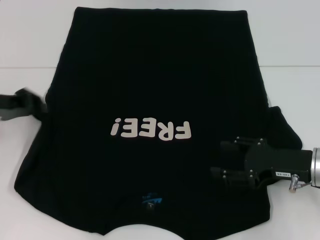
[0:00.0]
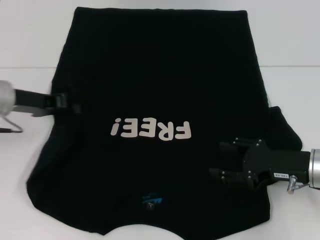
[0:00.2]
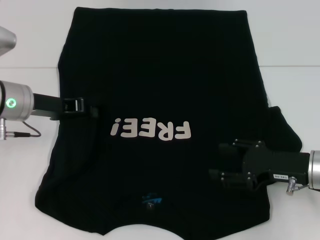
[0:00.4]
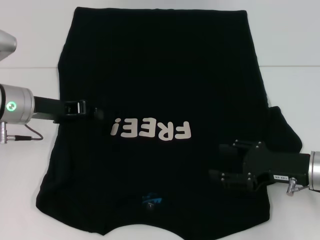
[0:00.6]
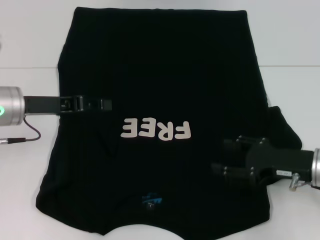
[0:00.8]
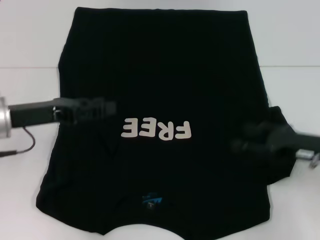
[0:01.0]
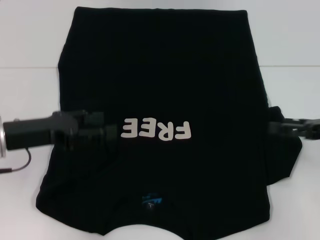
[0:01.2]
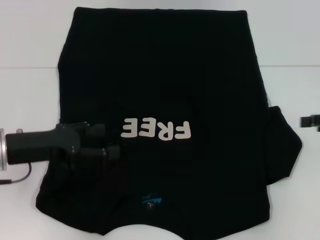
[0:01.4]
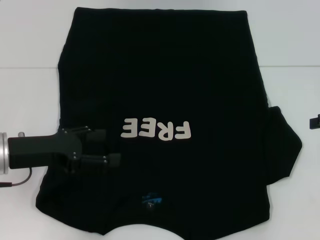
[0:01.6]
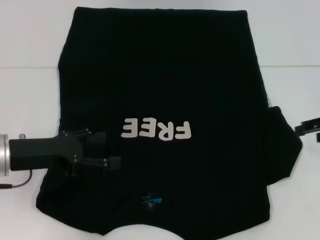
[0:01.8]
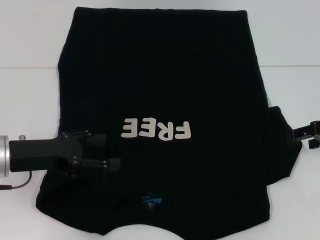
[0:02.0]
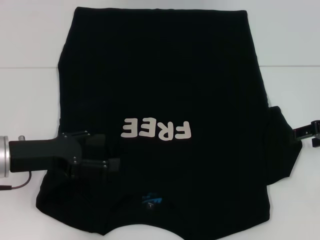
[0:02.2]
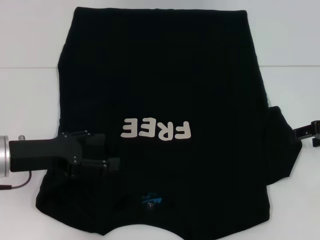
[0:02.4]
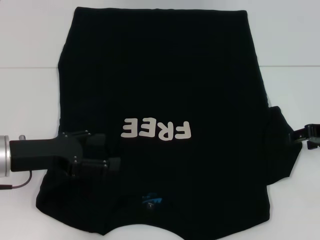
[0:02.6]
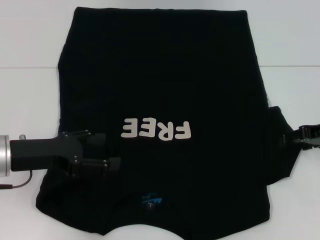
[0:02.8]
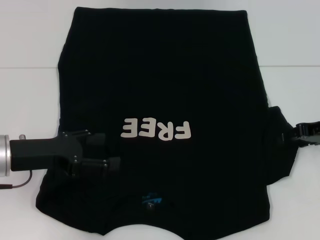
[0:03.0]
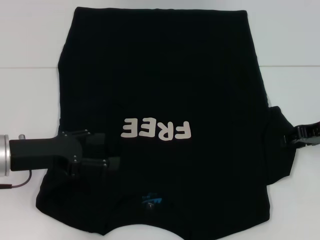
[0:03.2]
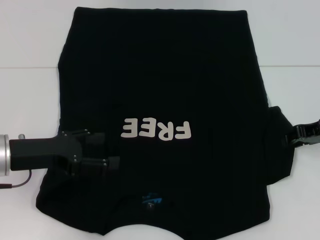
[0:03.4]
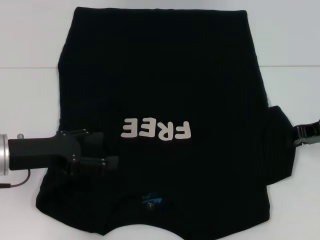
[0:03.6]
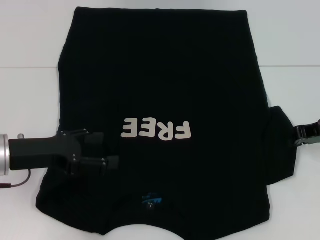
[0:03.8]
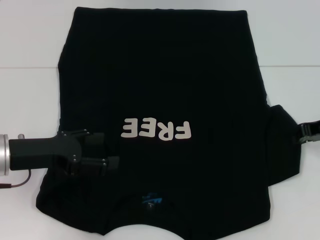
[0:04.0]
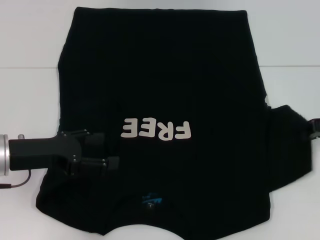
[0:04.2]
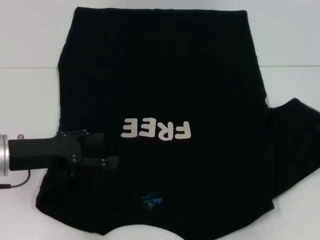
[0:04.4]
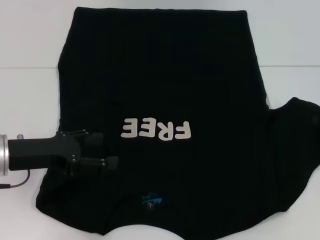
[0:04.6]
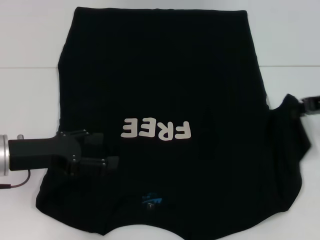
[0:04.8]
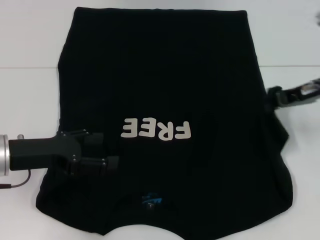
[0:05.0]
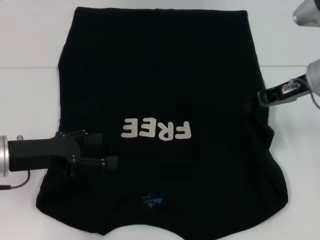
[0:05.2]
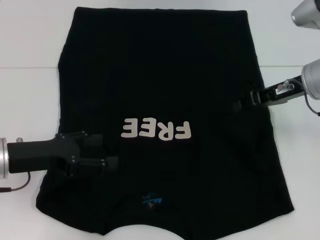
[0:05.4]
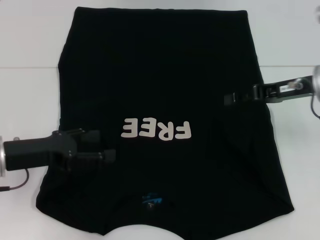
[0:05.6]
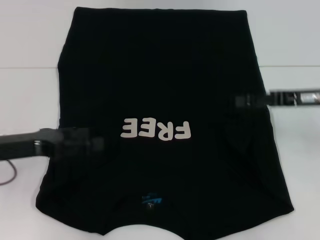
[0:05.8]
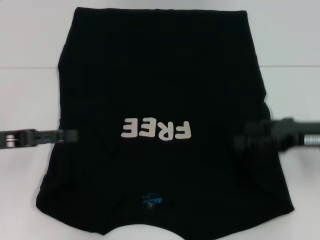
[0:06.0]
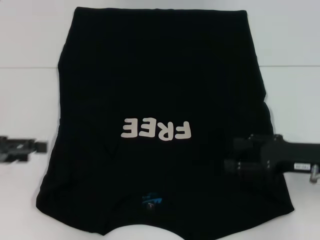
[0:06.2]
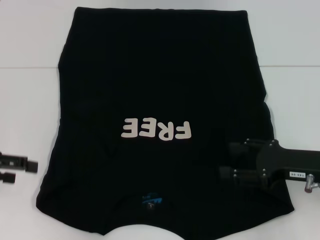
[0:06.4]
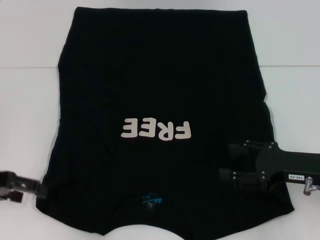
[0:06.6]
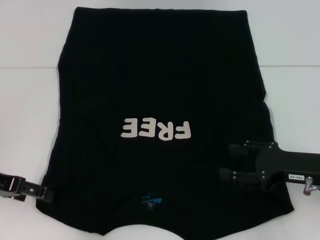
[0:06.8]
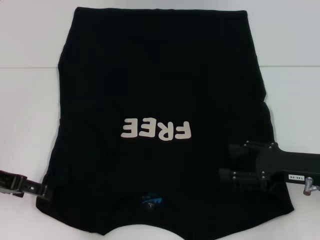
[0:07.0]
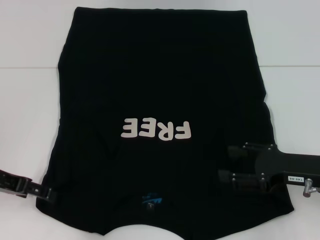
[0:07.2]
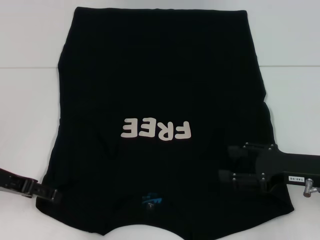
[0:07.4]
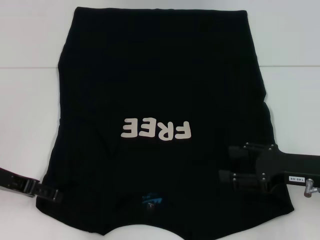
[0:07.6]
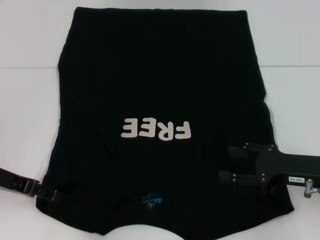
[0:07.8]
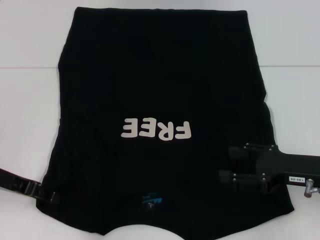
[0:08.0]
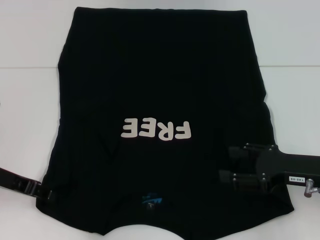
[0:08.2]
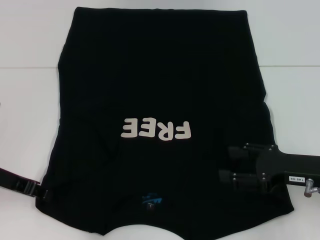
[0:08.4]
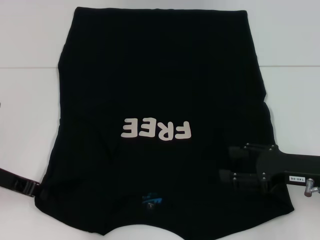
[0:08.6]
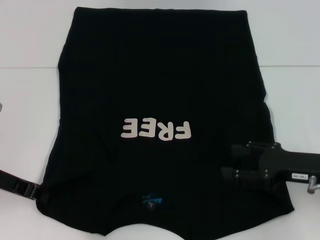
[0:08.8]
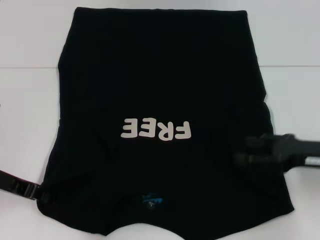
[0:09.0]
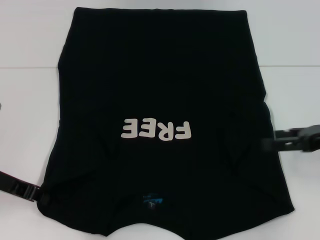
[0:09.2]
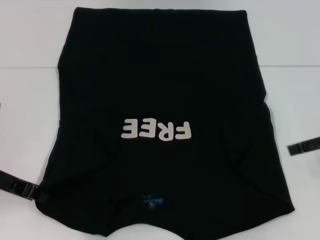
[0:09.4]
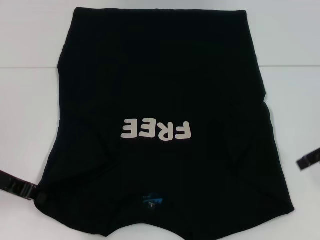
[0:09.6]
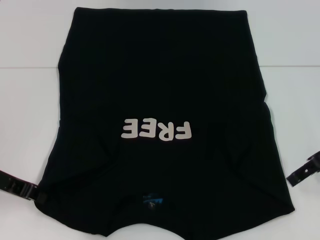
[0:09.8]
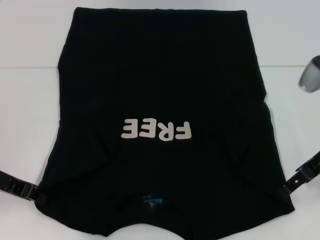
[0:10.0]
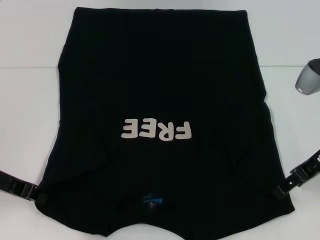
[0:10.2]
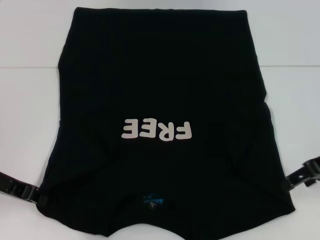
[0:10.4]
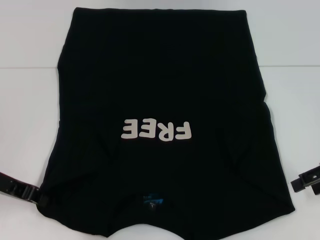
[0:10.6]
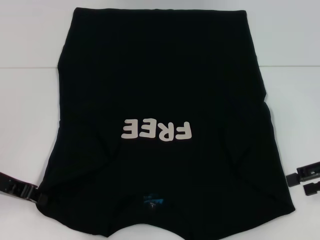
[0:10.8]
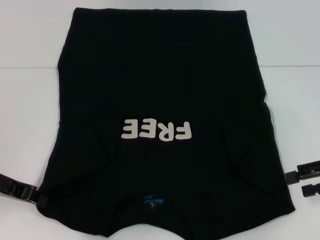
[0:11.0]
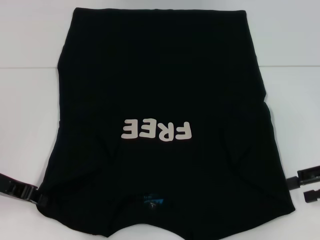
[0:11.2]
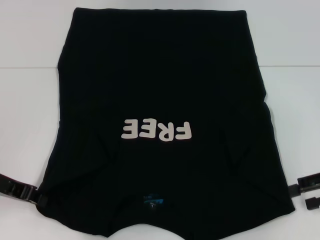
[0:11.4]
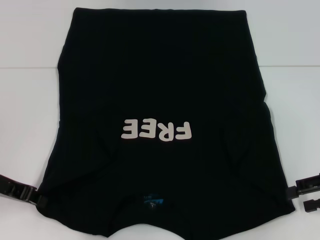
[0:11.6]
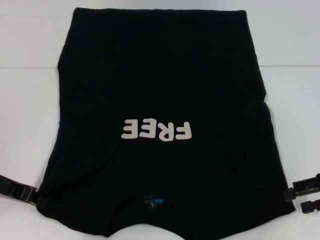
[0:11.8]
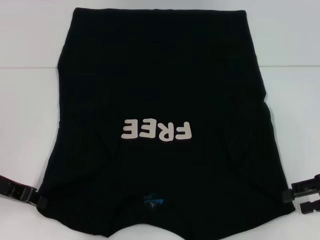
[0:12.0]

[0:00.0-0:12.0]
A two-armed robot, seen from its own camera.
Step, 0:01.8 to 0:06.0: Fold the bottom right sleeve with your right hand.
0:00.0 to 0:01.6: The right gripper travels to the right and upward by approximately 15 cm, while the left gripper travels backward and to the right by roughly 10 cm, and opens.
0:01.6 to 0:03.0: The right gripper is displaced to the left by roughly 5 cm.
0:03.0 to 0:04.4: The right gripper closes.
0:04.4 to 0:06.0: The two grippers go about 5 cm to the left. The right gripper opens its fingers.
0:06.0 to 0:07.6: The right gripper shifts by approximately 5 cm.
0:07.6 to 0:09.0: The left gripper closes its fingers.
0:10.4 to 0:12.0: The right gripper changes place by approximately 5 cm.

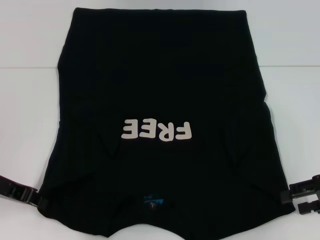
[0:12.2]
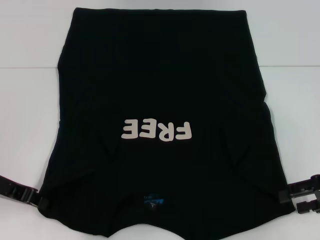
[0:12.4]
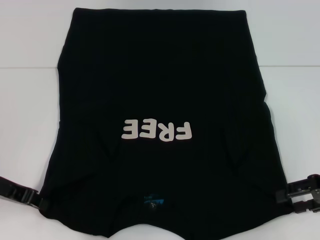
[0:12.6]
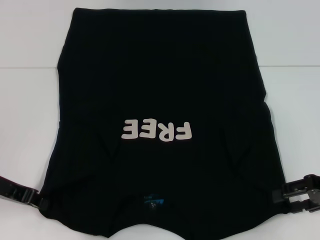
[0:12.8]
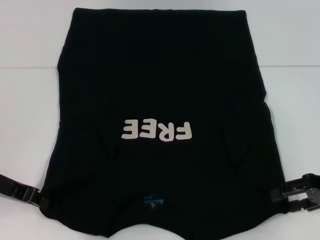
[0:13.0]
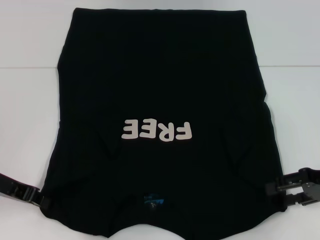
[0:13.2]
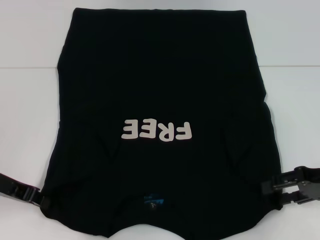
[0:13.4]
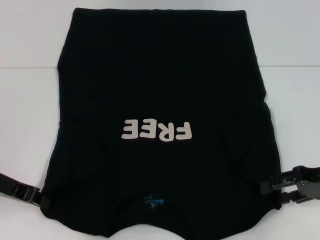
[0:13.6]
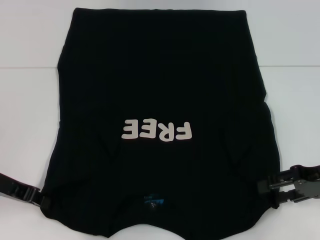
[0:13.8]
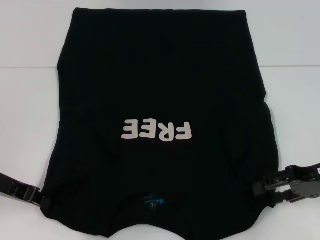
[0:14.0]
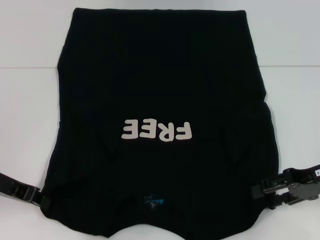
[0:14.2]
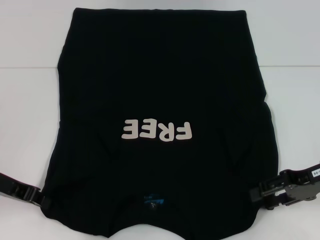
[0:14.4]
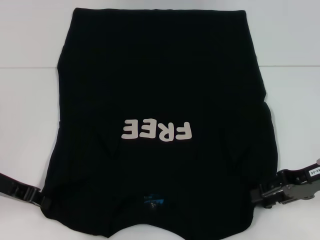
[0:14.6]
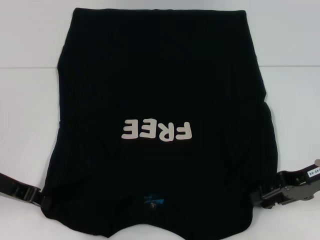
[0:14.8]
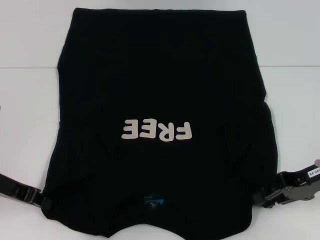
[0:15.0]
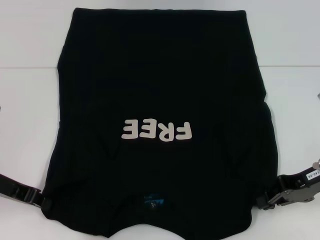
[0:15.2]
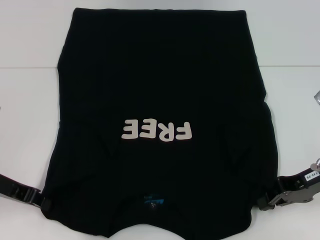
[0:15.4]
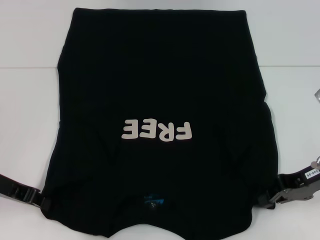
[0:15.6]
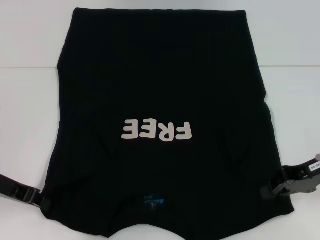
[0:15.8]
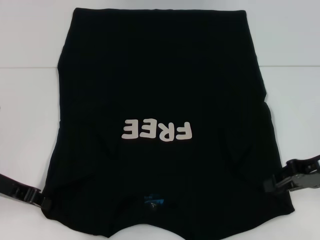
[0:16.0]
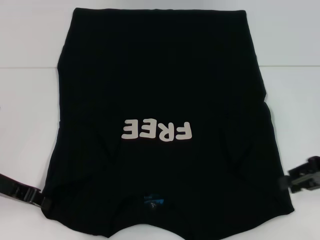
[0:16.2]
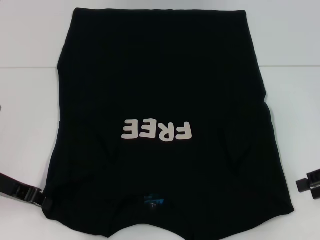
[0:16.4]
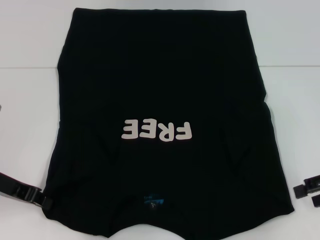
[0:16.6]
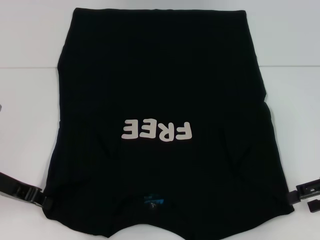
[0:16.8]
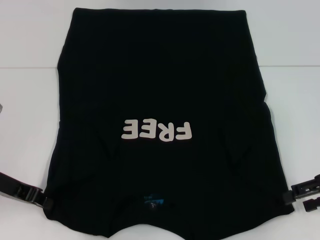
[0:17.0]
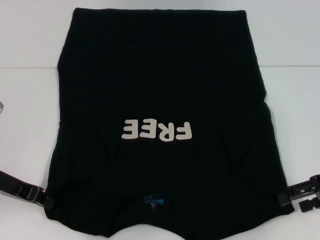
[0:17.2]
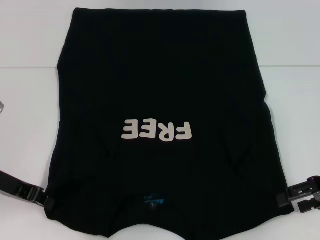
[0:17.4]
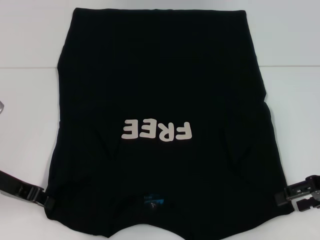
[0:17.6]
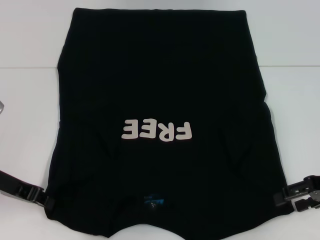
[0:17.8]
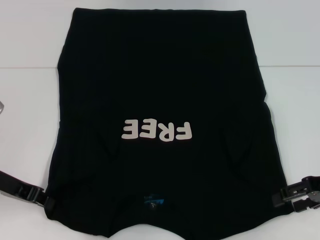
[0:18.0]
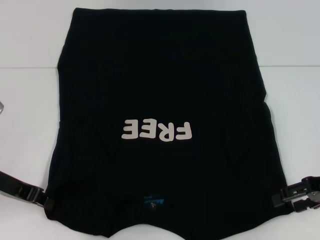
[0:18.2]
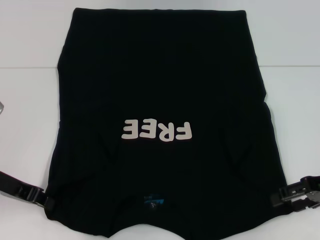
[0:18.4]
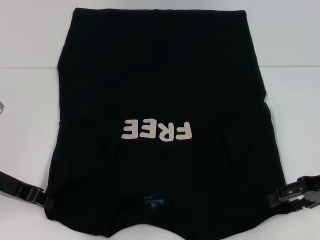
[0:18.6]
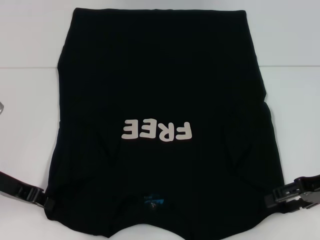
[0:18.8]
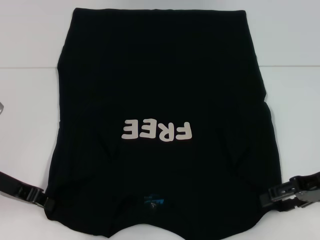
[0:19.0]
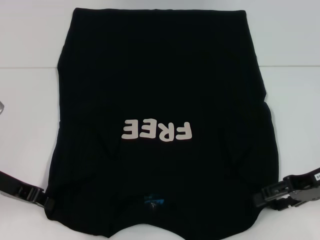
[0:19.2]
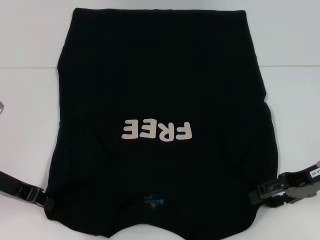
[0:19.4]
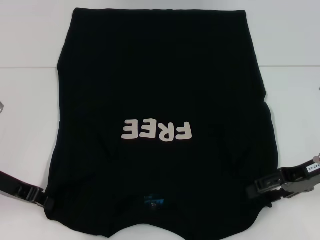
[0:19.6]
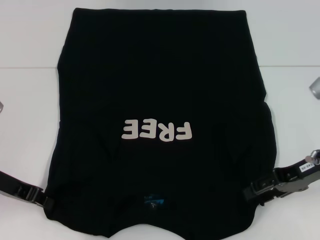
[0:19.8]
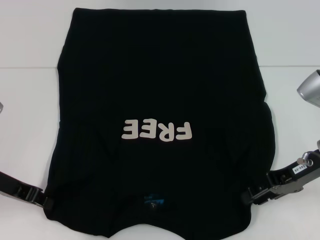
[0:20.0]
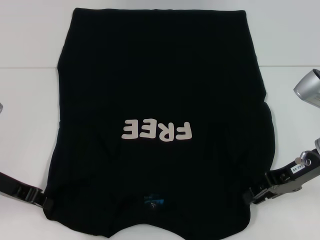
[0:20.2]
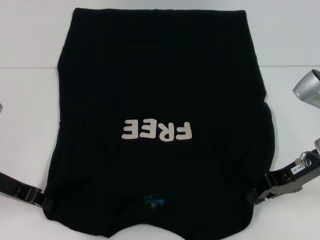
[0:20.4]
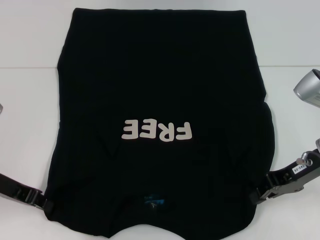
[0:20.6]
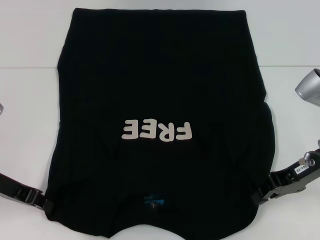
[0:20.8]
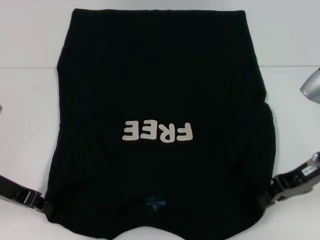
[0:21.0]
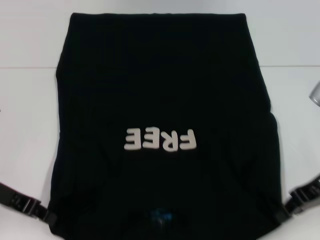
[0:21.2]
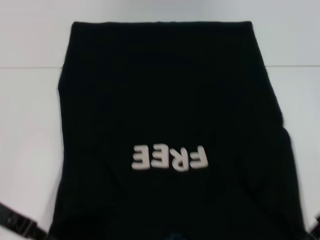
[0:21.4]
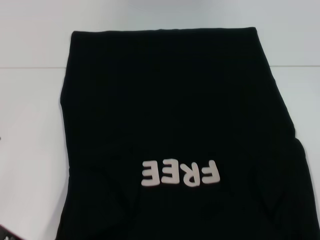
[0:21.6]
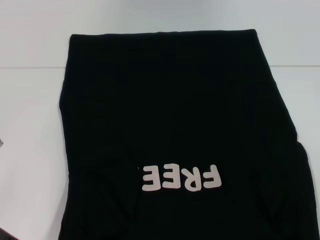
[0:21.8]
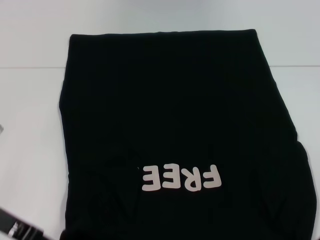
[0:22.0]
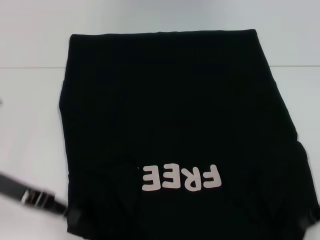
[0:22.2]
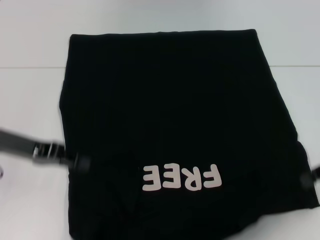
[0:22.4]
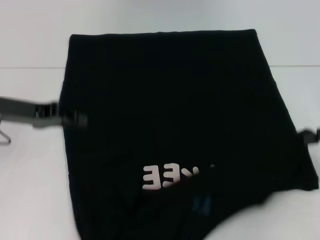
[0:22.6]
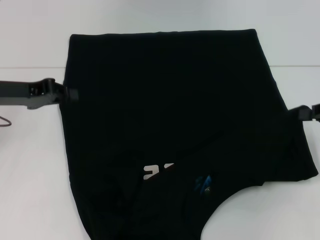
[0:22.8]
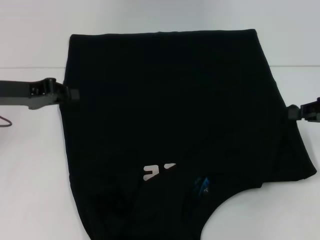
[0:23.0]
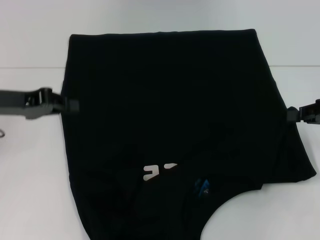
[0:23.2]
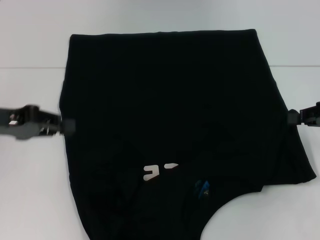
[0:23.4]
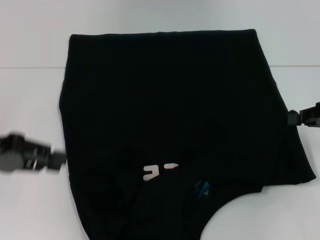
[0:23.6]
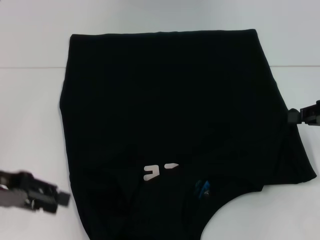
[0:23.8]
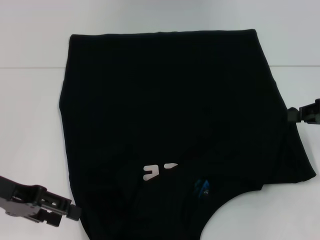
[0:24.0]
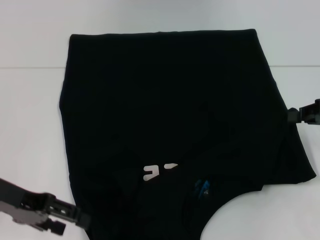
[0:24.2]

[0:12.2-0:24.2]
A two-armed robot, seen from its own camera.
Step, 0:12.2 to 0:21.2: Grab the bottom right corner with your right hand.
0:12.2 to 0:13.8: The grippers stay close to where they were, moving slightly.
0:13.8 to 0:15.2: The right gripper closes up.
0:15.2 to 0:16.6: The right gripper goes about 5 cm to the right.
0:16.6 to 0:18.2: The grippers make only small movements.
0:18.2 to 0:19.8: The right gripper moves to the left, roughly 5 cm.
0:19.8 to 0:21.2: The right gripper closes up.
0:21.2 to 0:22.6: The left gripper travels forward by about 5 cm, while the right gripper is displaced to the right by approximately 10 cm.
0:22.6 to 0:24.2: The left gripper travels backward by approximately 10 cm, and opens up.
